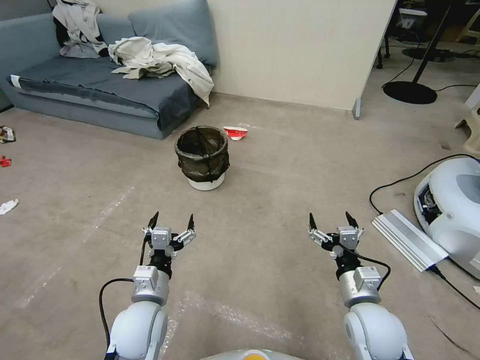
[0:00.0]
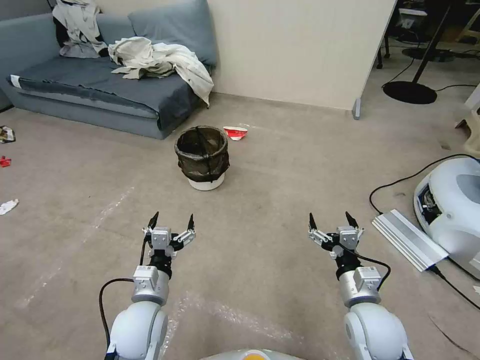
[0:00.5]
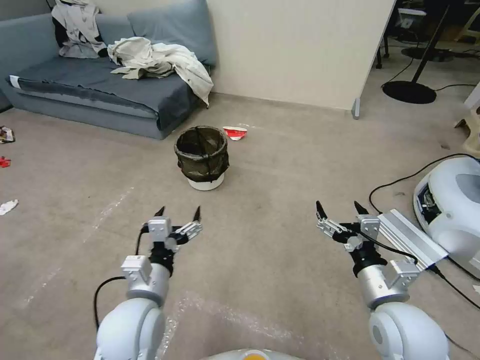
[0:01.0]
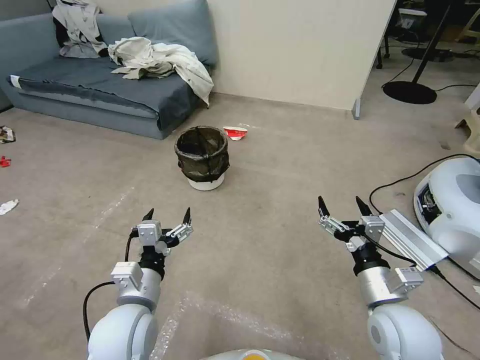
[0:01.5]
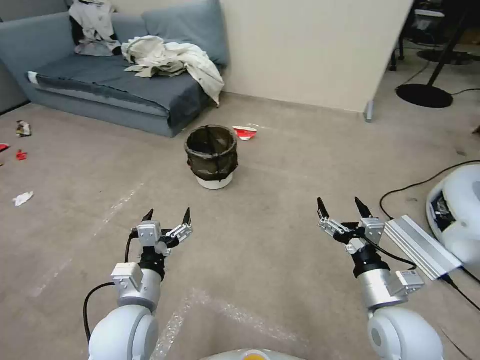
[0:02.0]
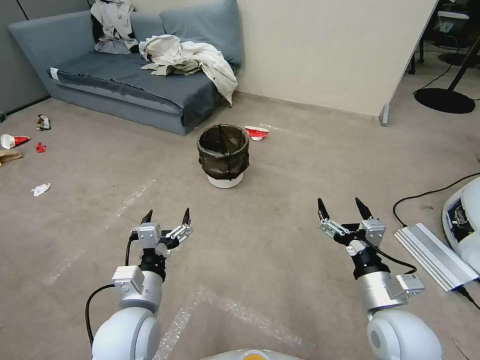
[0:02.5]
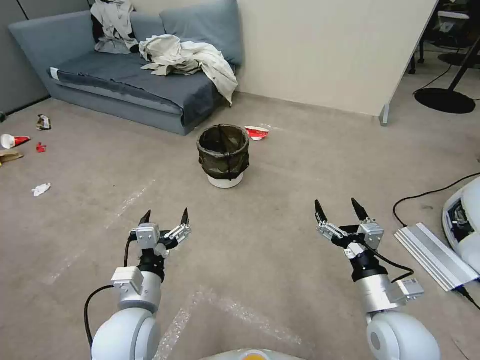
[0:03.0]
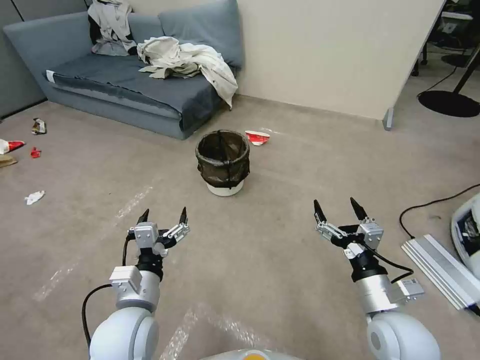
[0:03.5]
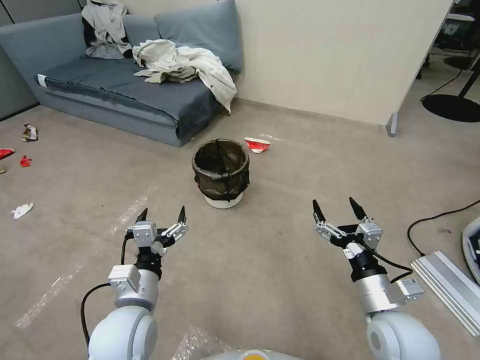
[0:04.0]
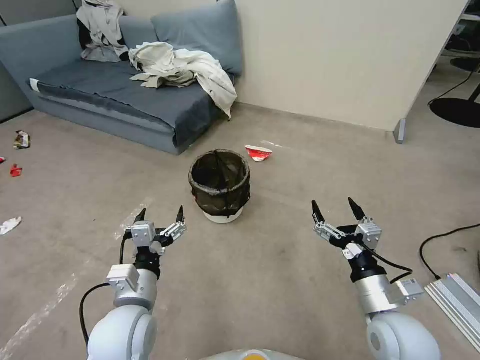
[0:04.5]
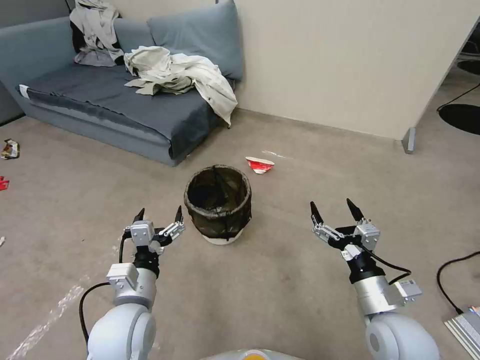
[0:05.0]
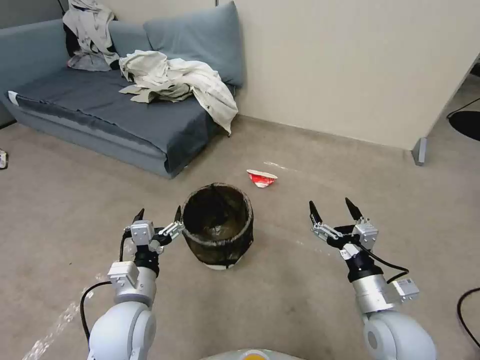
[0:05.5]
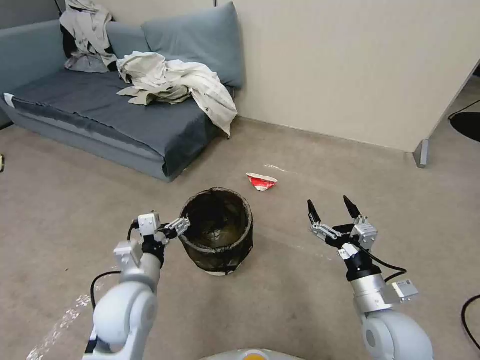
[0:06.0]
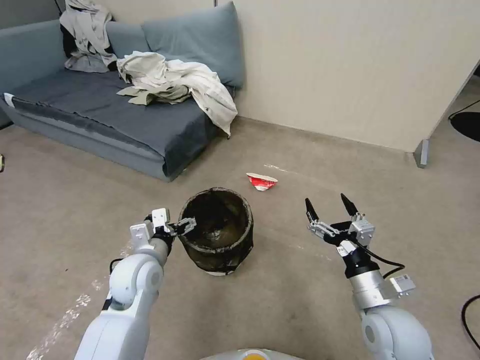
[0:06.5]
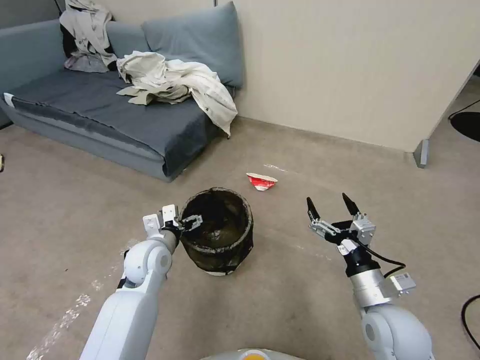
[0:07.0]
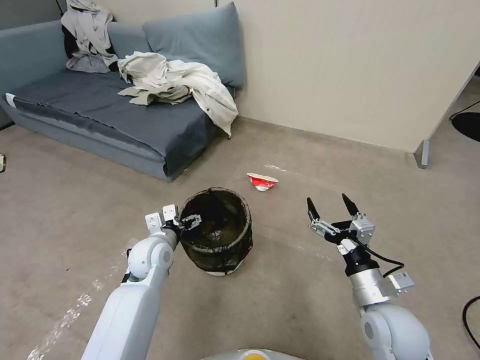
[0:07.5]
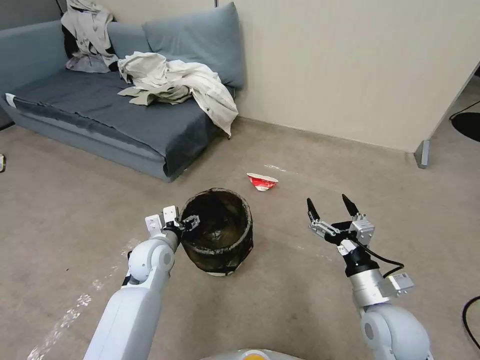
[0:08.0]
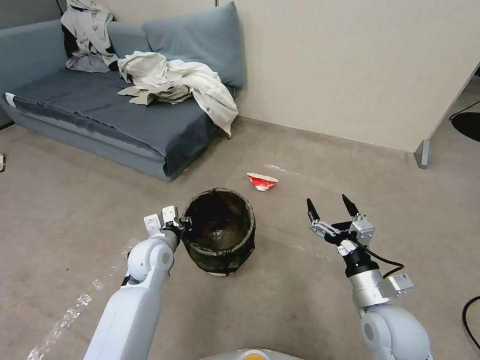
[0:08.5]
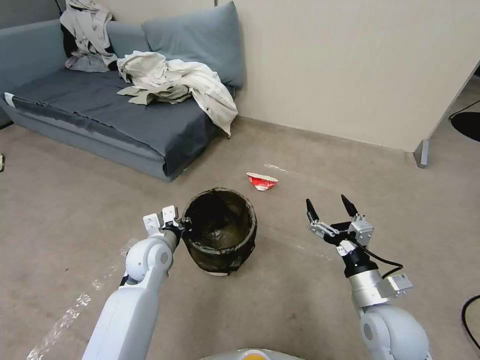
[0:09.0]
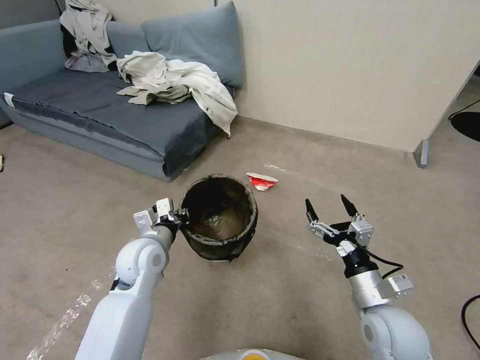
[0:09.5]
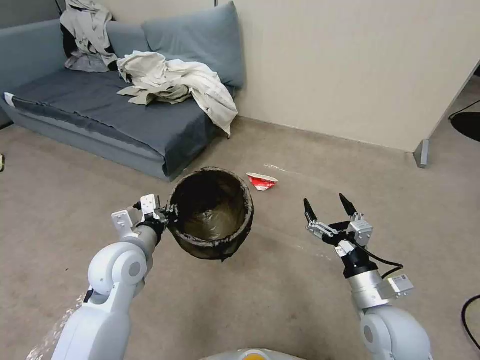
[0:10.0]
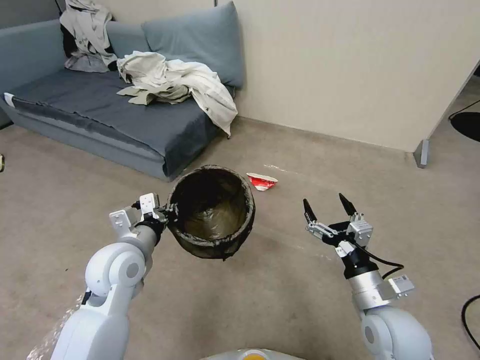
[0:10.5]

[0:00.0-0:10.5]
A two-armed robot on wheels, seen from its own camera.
Task of the whole recording: Pick up the trash can from the floor.
0:04.0 to 0:06.5: The left gripper moves forward, some 10 cm.
0:06.5 to 0:08.5: The left gripper is displaced forward by approximately 10 cm, and closes its fingers.
0:08.5 to 0:10.5: The left gripper is displaced upward and backward by approximately 10 cm.

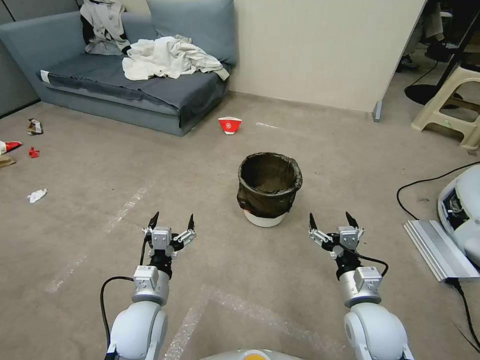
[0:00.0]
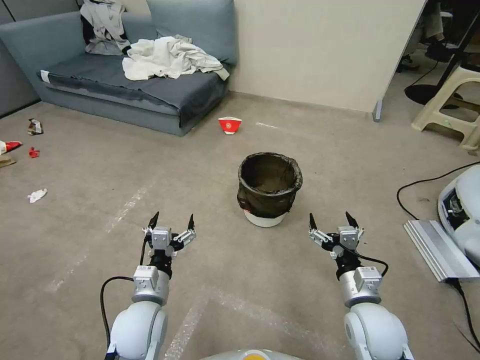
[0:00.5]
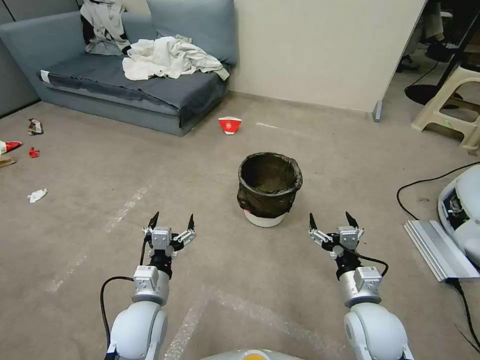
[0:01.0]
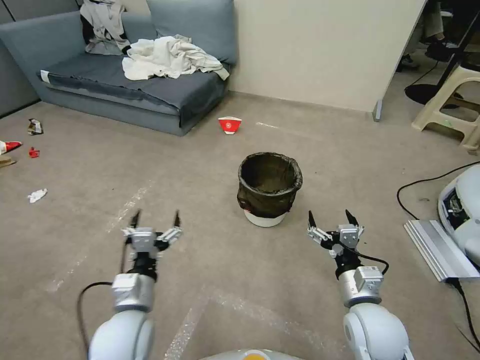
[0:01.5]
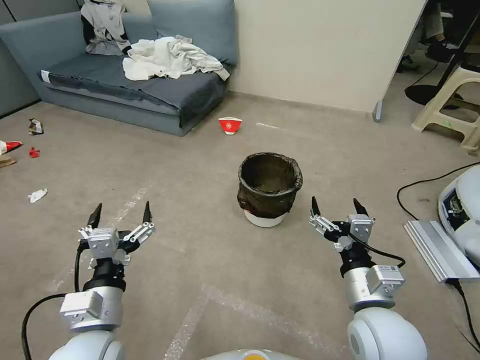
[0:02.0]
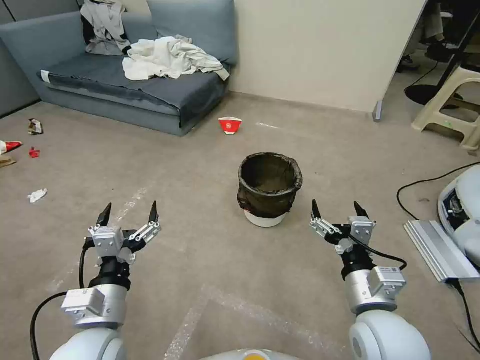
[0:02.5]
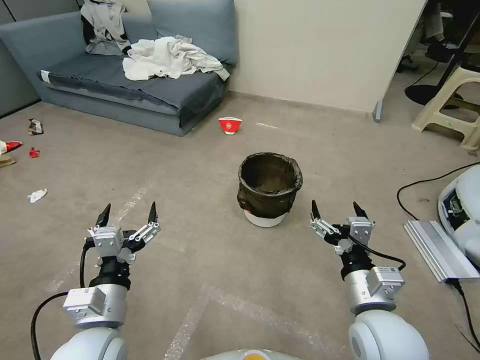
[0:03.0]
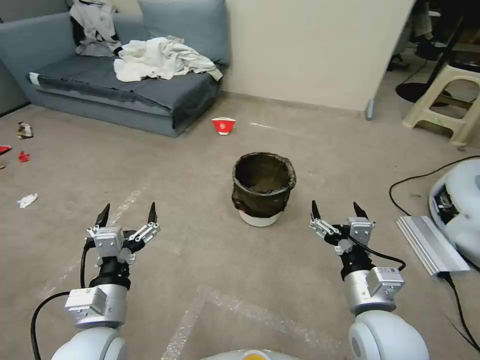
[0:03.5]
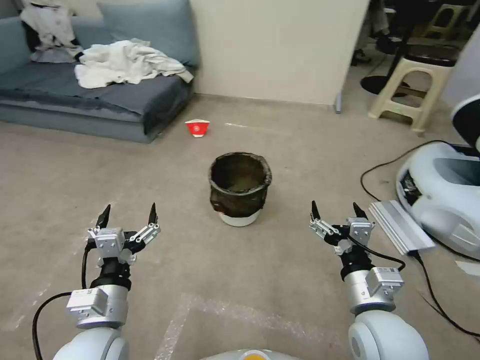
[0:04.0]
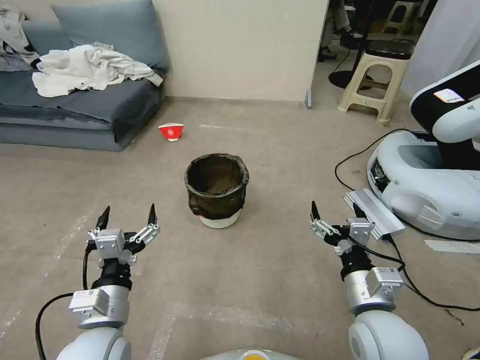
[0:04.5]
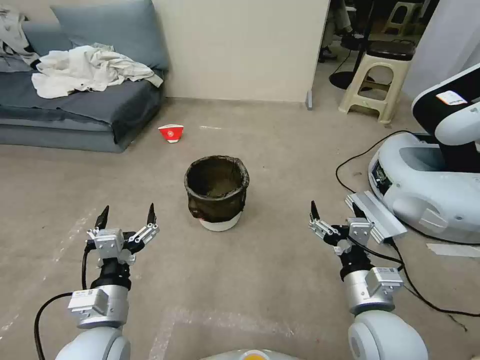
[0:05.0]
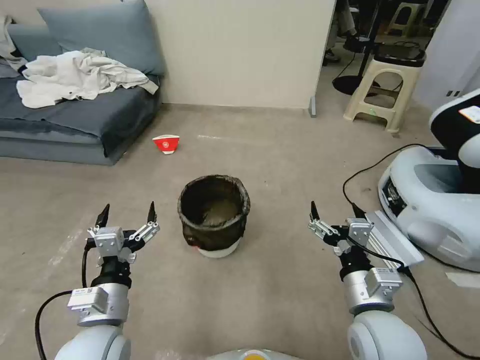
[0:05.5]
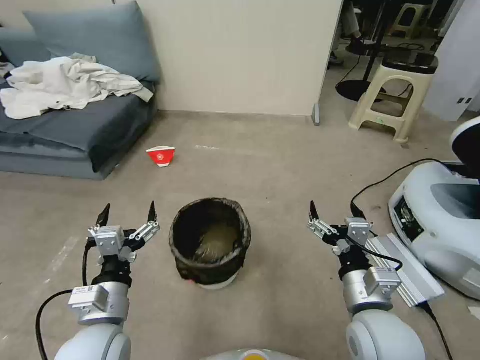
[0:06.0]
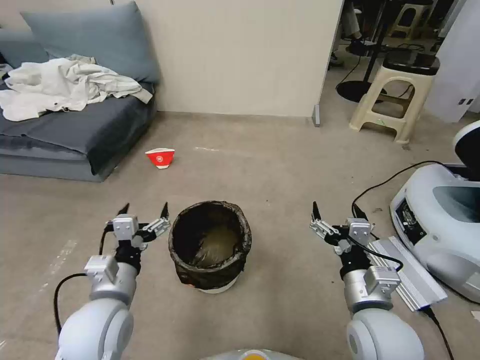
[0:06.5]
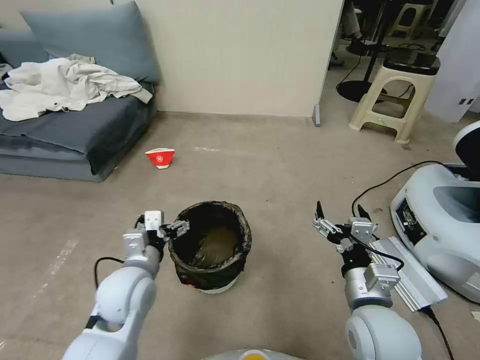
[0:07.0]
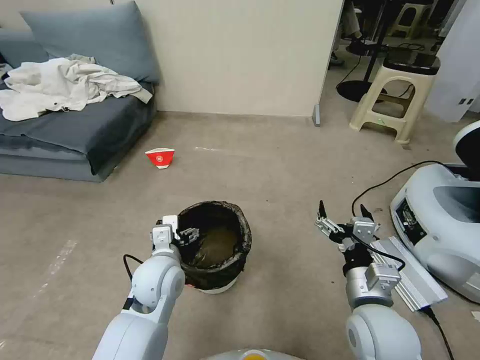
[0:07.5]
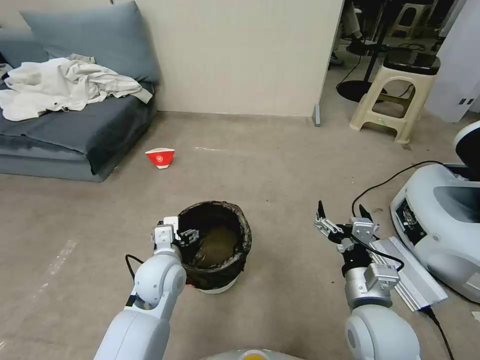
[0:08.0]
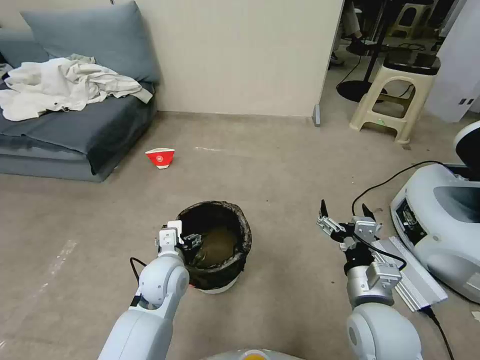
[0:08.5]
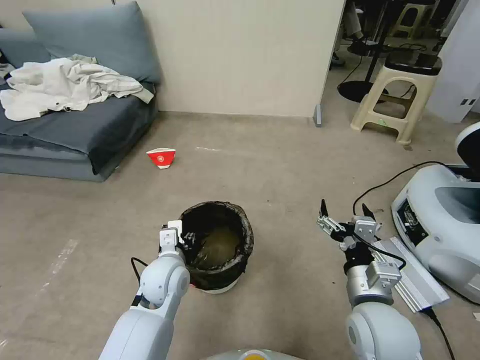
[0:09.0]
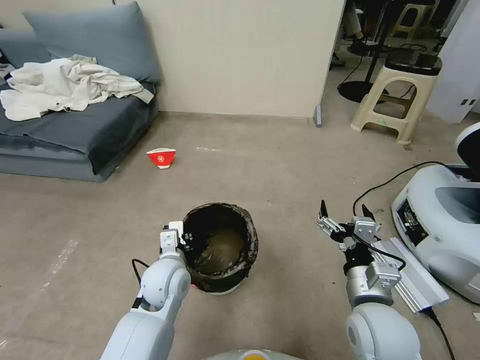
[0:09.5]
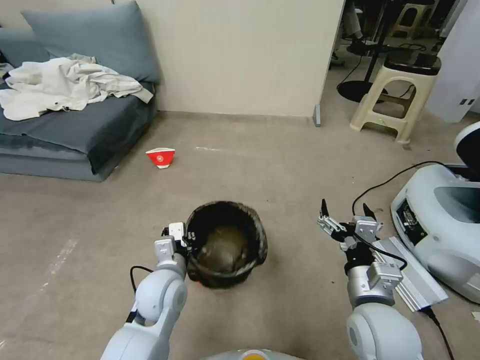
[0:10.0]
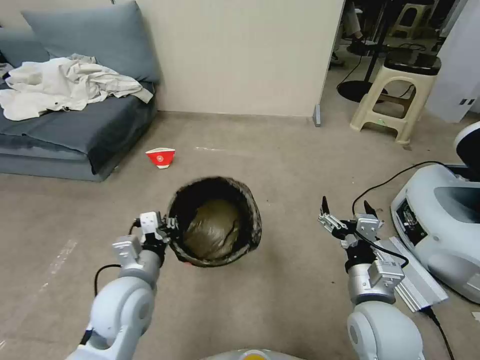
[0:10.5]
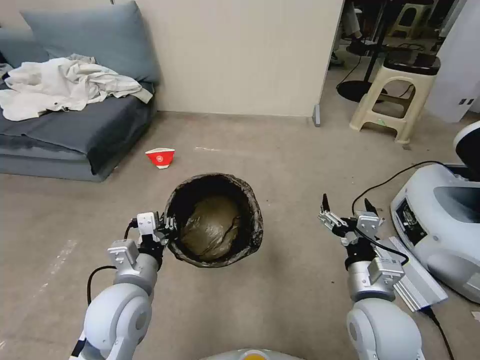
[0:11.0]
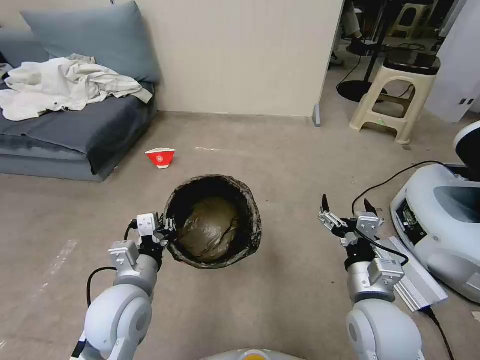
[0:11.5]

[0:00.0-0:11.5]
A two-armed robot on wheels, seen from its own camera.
Task of the whole recording: Pick up the trash can from the floor.
0:06.0 to 0:07.5: The left gripper heads forward and to the right, covering about 15 cm.
0:07.5 to 0:09.5: The left gripper closes its fingers.
0:09.5 to 0:11.5: The left gripper heads backward and upward, covering approximately 10 cm.
